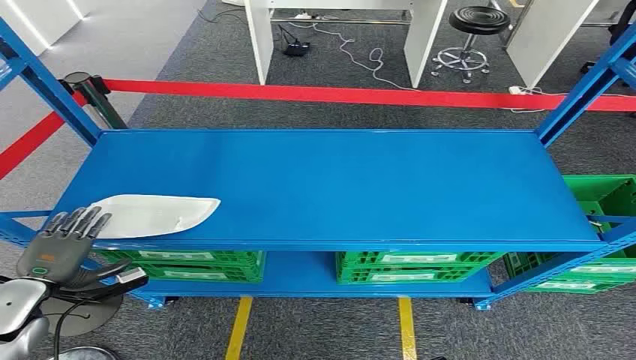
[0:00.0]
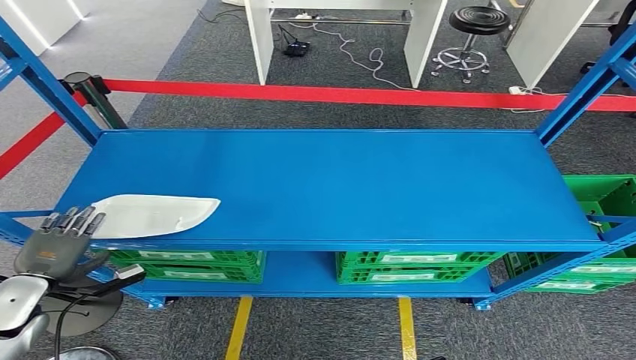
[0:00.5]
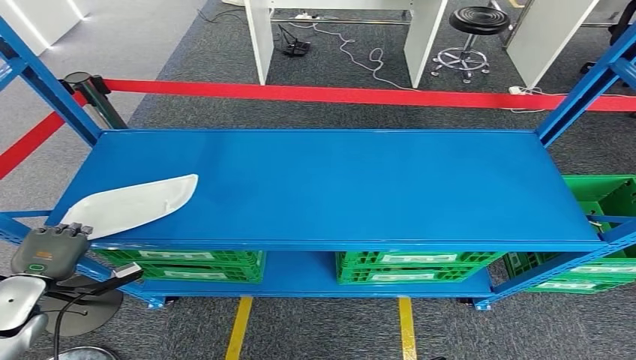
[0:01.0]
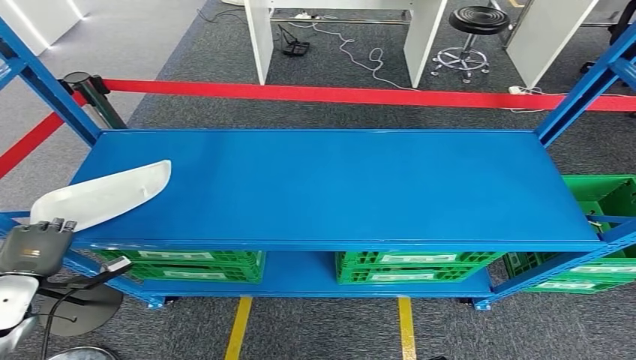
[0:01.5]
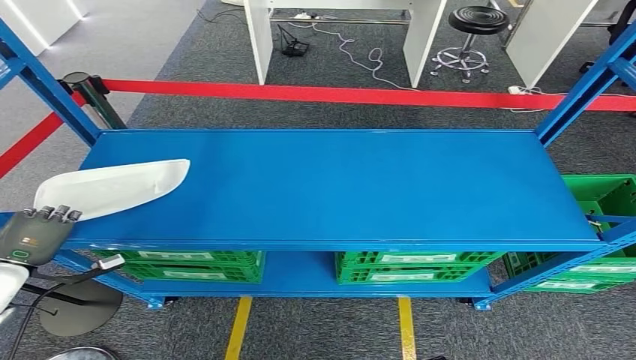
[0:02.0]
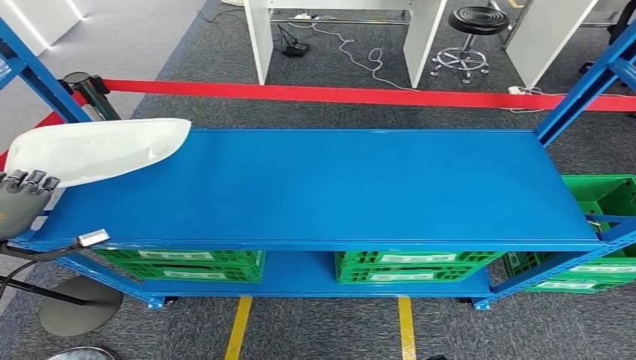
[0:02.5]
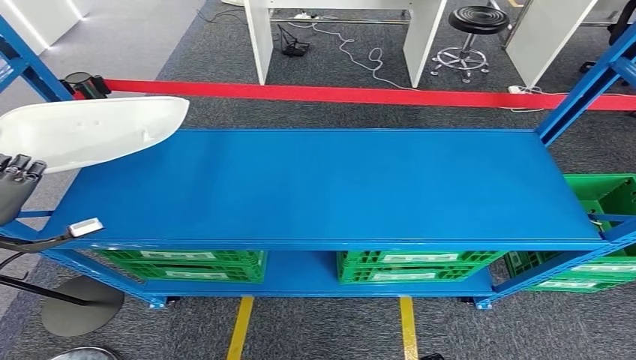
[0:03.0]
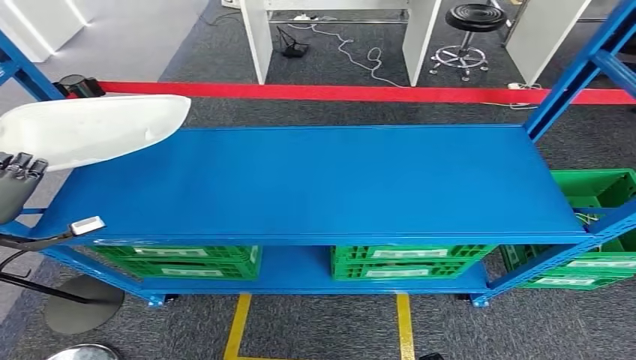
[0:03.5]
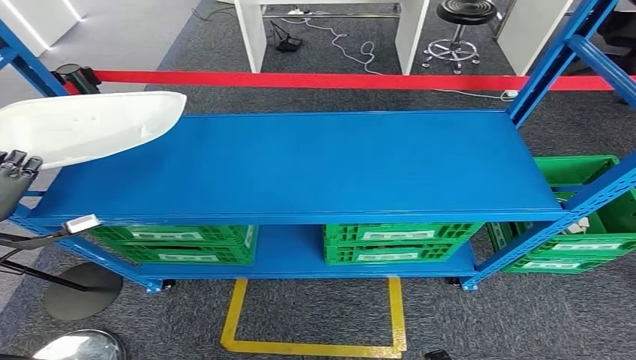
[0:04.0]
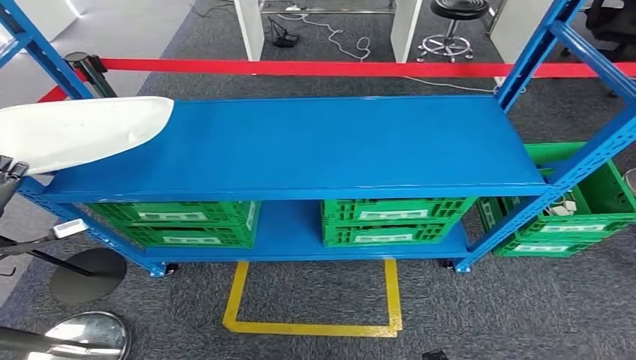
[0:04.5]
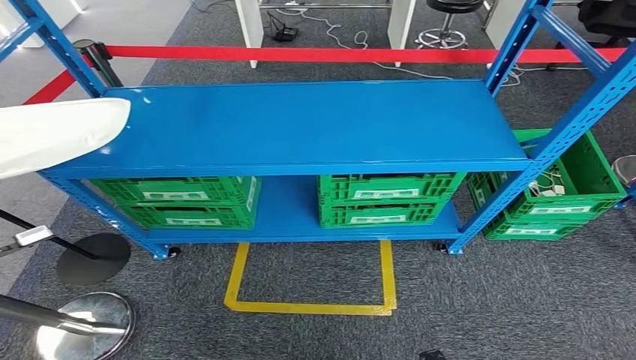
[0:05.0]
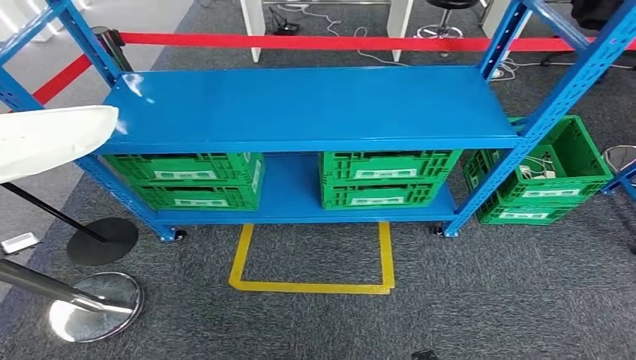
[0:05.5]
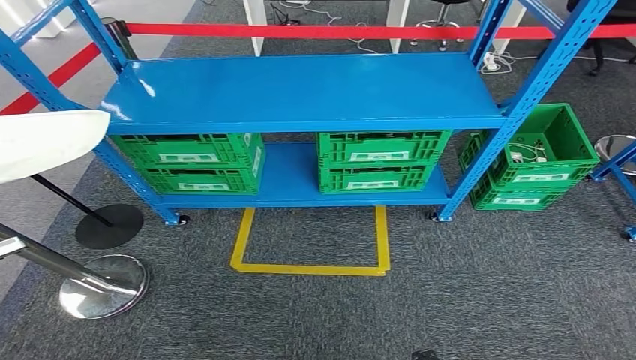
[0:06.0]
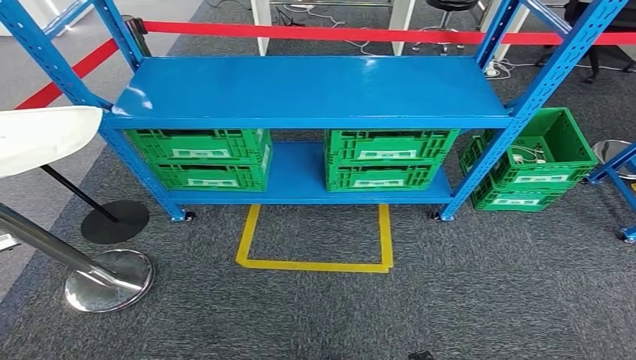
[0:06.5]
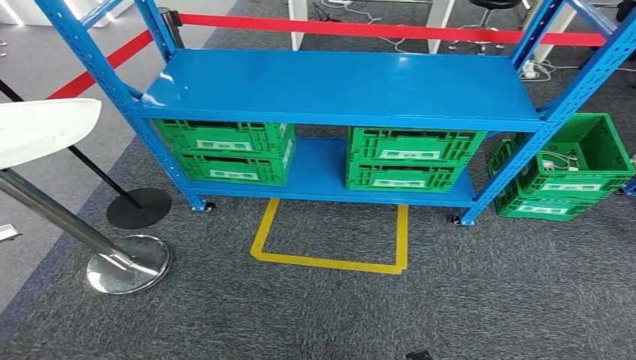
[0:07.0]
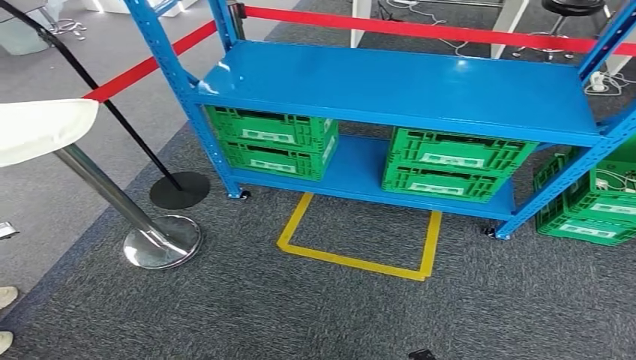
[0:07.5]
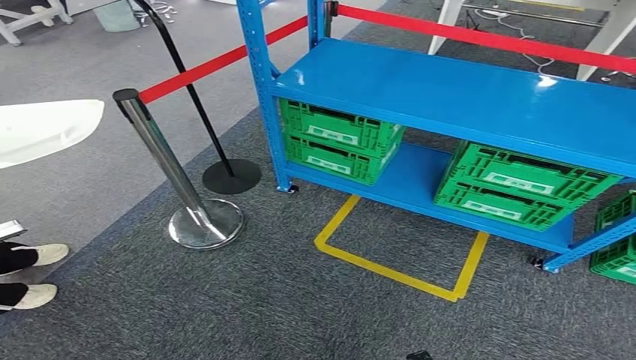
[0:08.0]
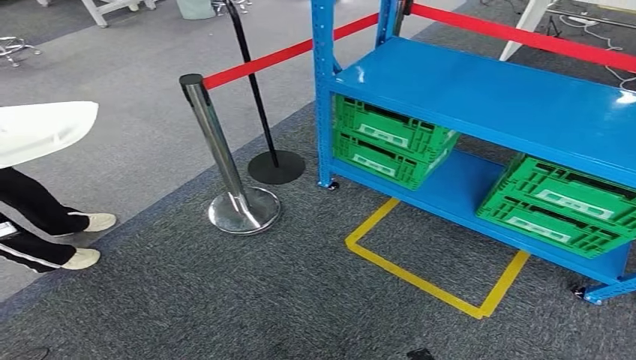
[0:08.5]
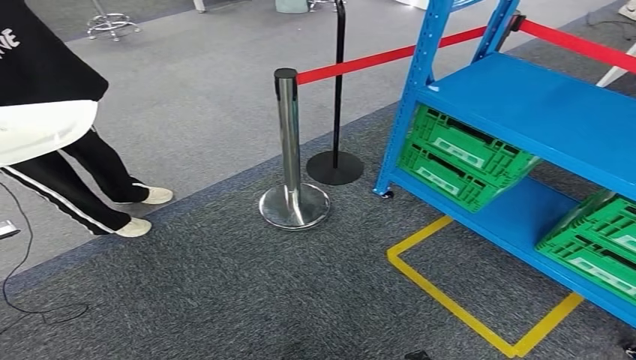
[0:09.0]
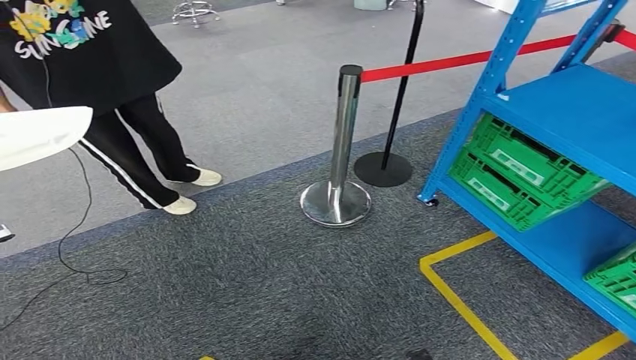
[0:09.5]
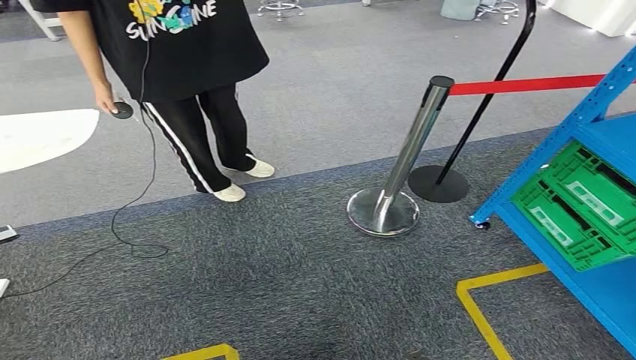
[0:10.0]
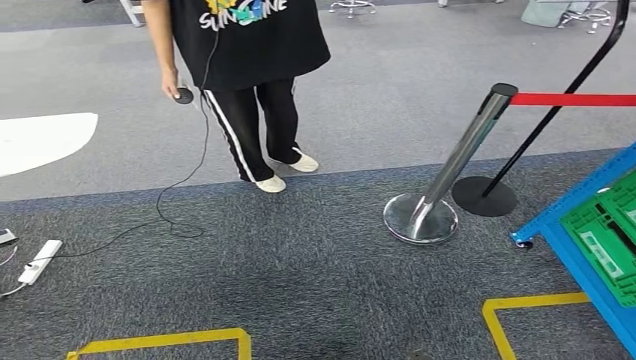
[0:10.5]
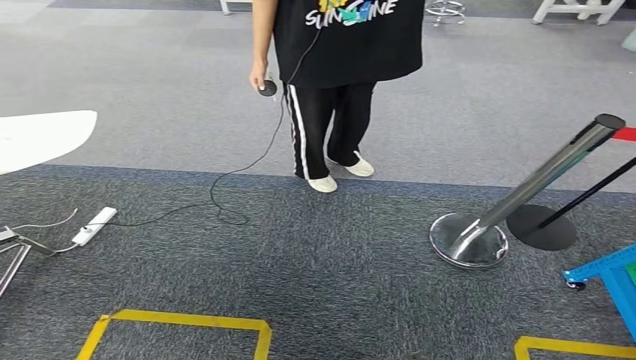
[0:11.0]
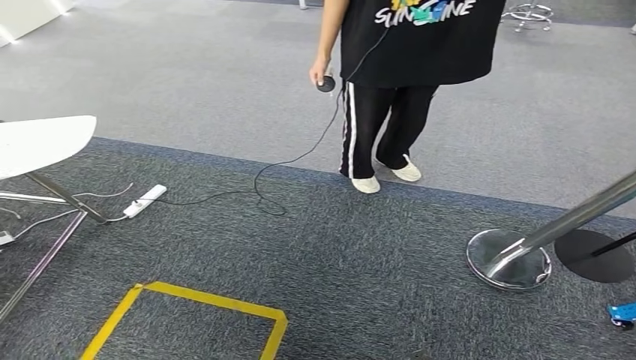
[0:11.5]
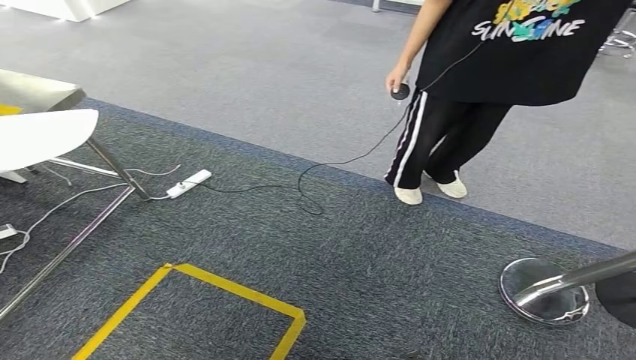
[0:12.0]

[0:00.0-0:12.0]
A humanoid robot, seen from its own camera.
Step, 0:00.0 to 0:03.5: Pick up the small component from the shelf.

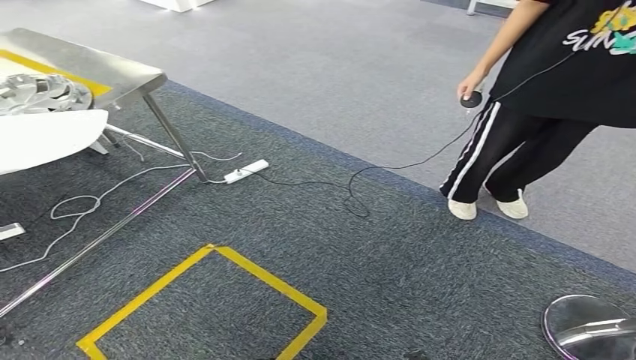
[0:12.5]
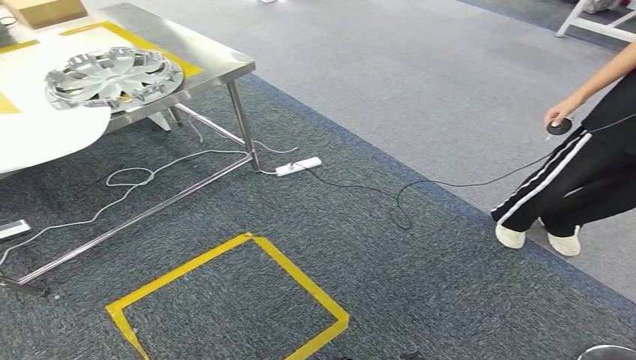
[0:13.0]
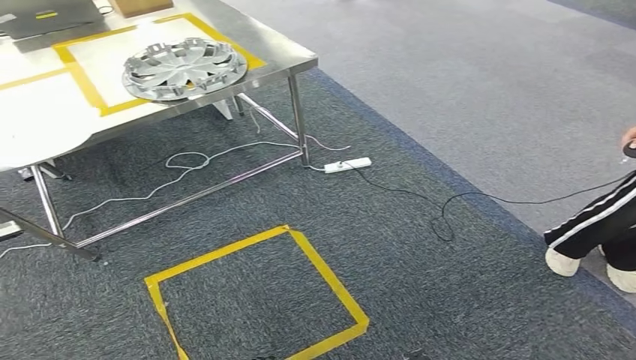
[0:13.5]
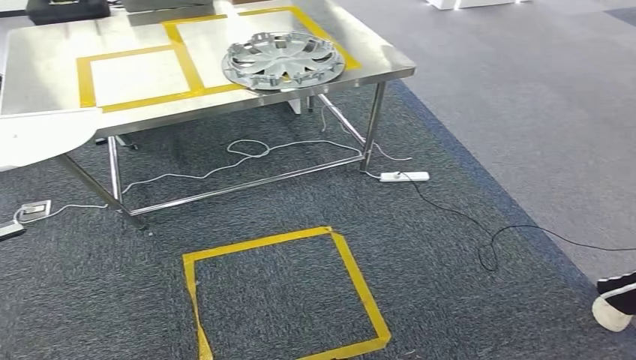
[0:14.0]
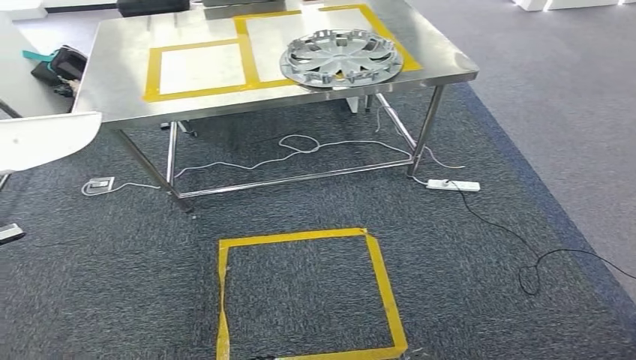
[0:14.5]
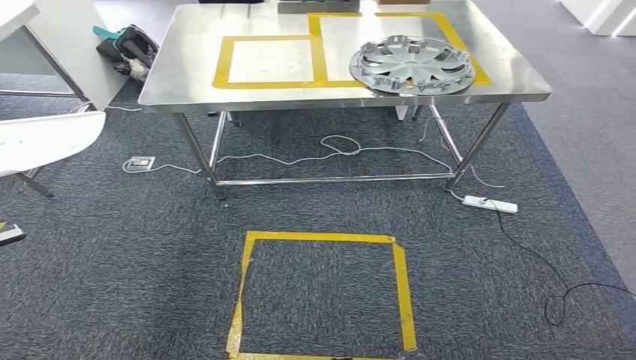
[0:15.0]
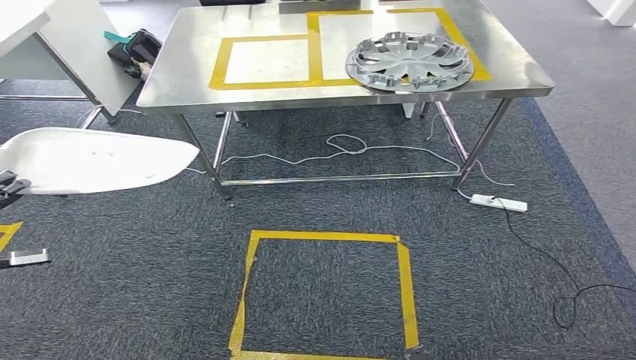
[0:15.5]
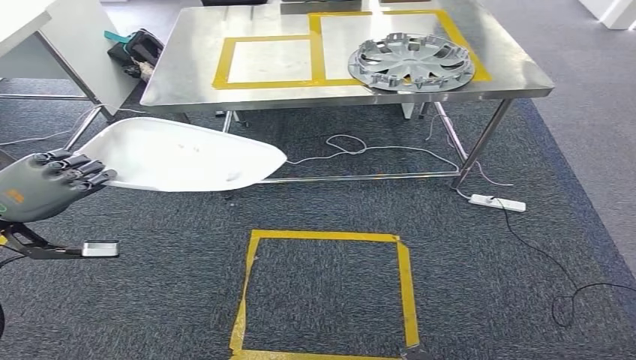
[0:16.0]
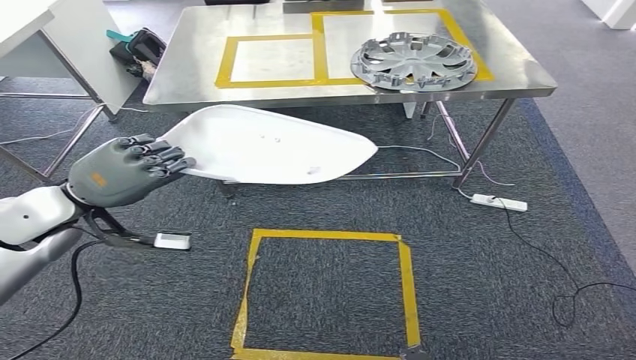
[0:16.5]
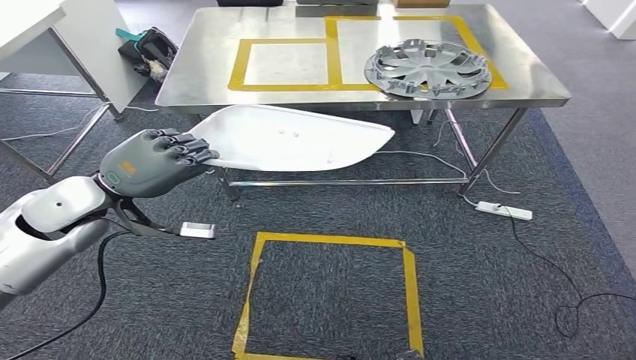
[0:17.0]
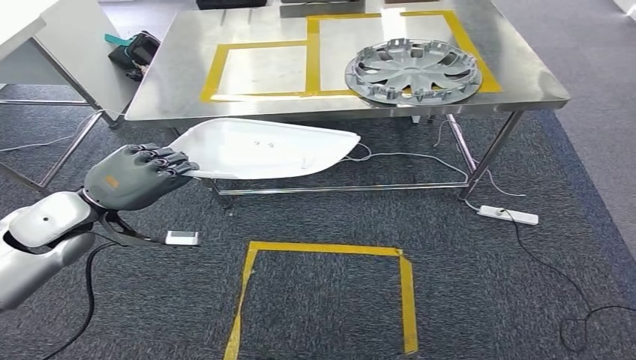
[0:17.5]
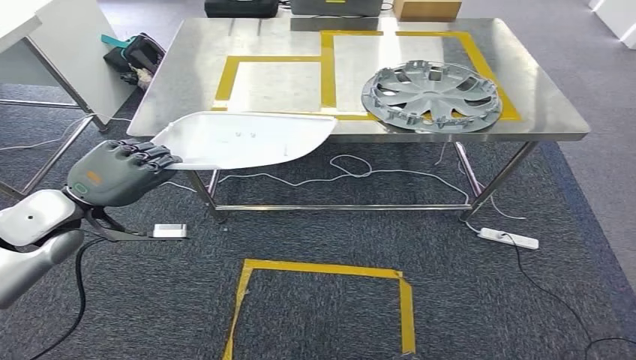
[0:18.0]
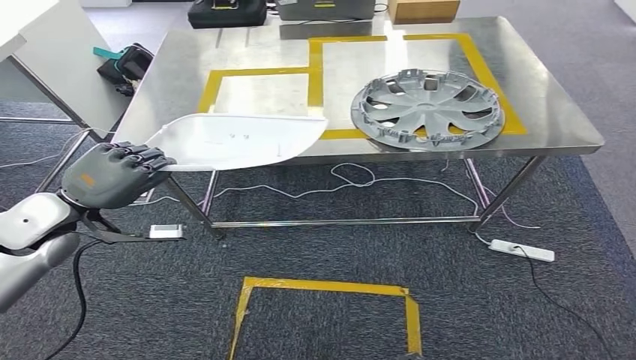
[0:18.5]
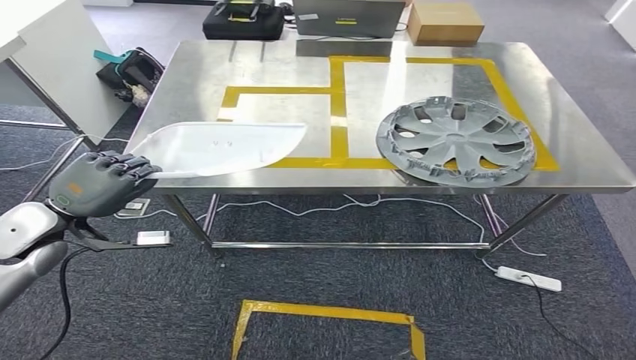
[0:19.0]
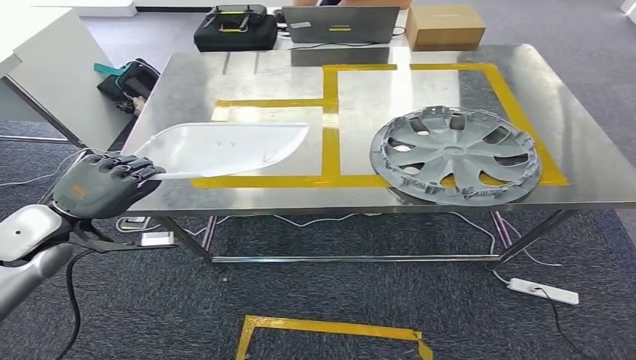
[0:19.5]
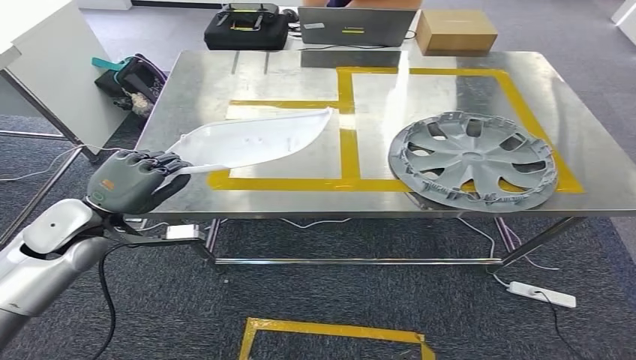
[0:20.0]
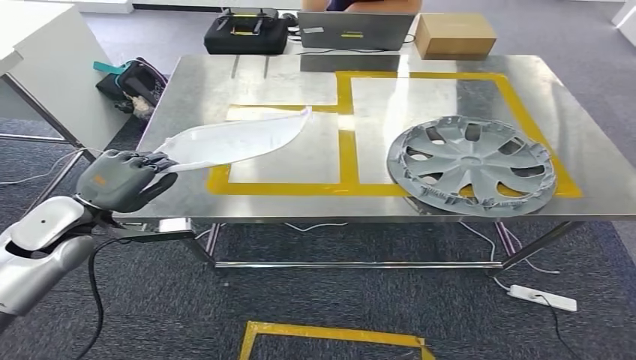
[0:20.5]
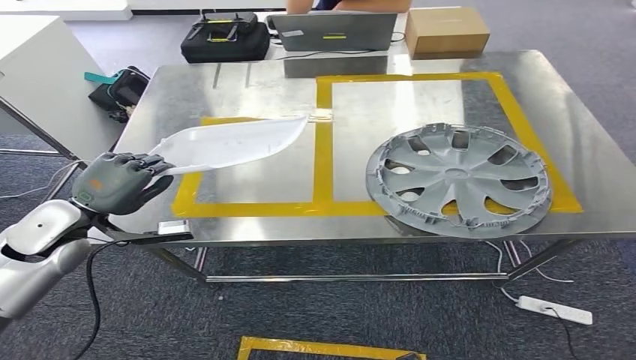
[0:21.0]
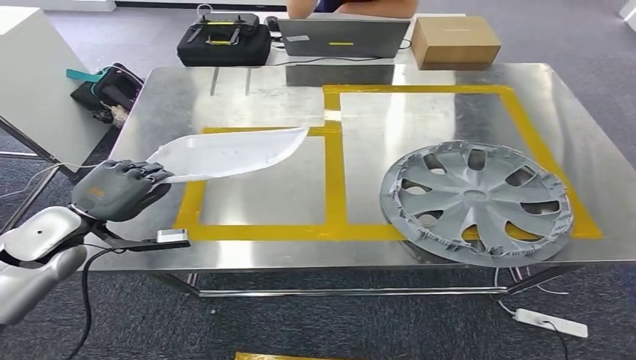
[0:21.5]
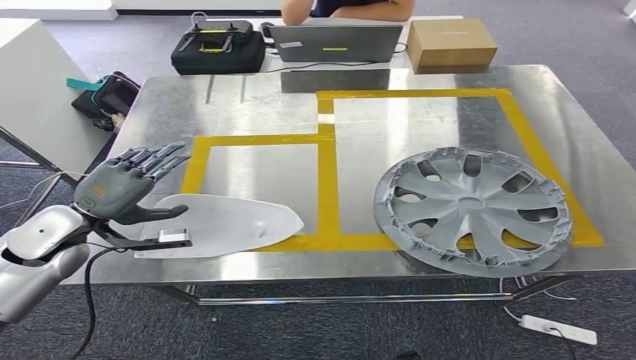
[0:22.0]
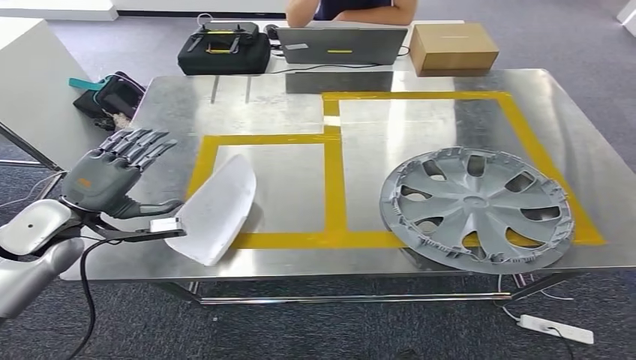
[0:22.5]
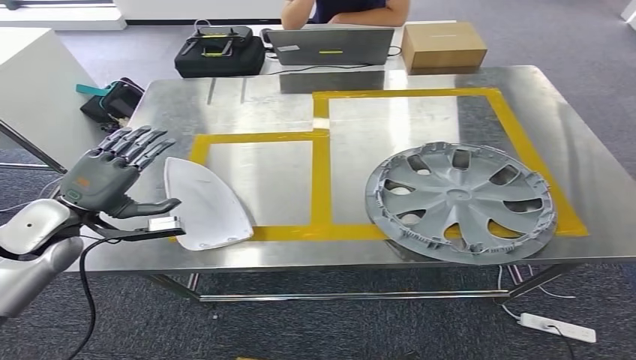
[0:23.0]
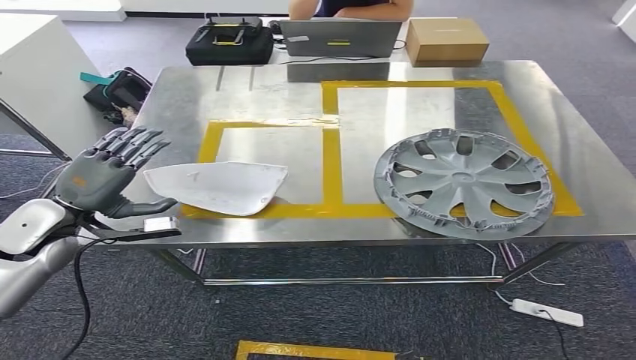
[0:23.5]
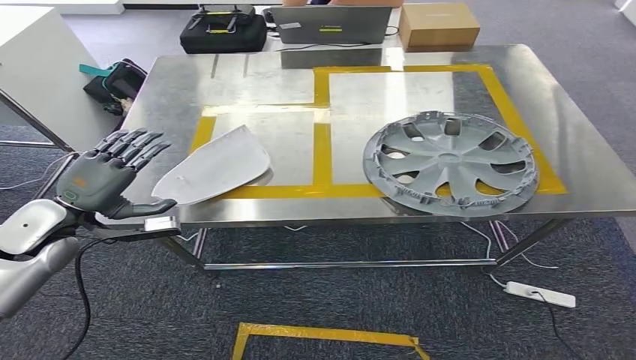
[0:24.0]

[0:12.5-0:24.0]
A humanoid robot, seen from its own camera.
Step, 0:12.5 to 0:19.0: Bring the small component to the front of the workbench.
